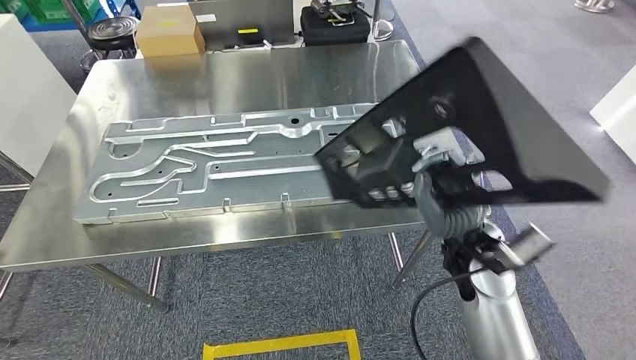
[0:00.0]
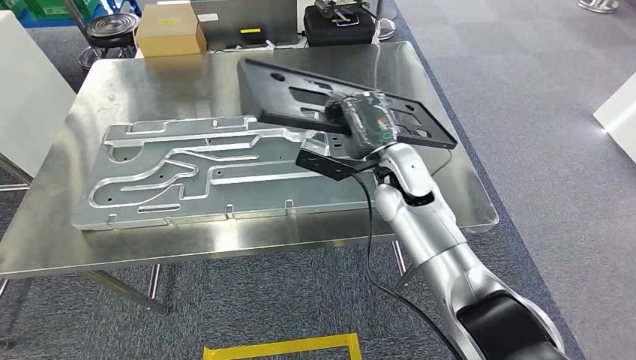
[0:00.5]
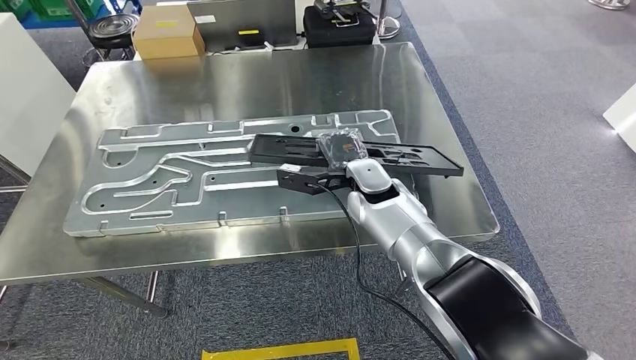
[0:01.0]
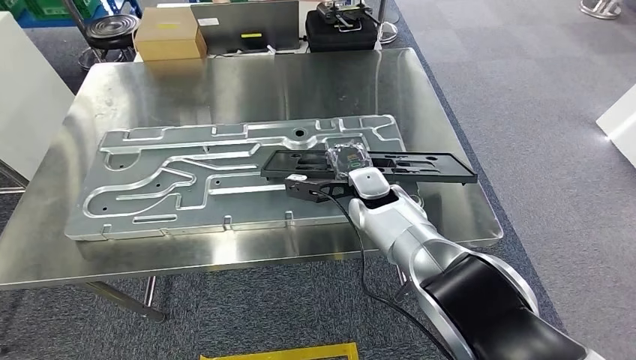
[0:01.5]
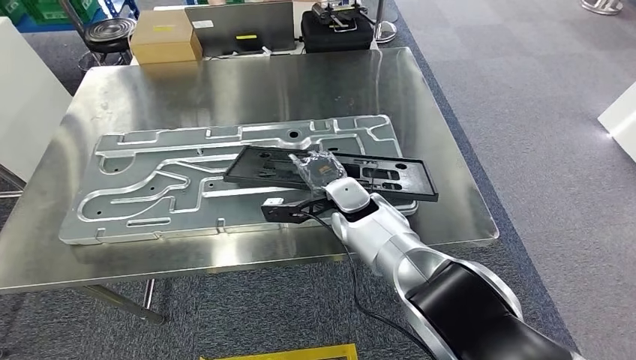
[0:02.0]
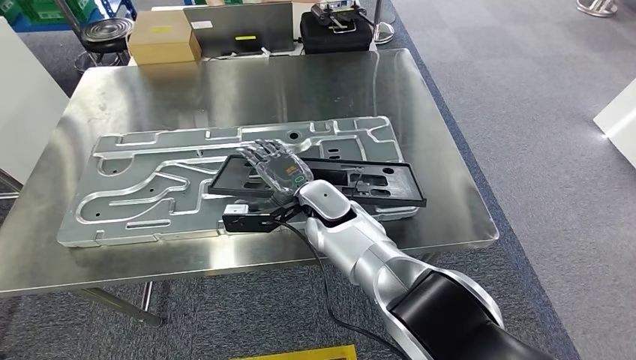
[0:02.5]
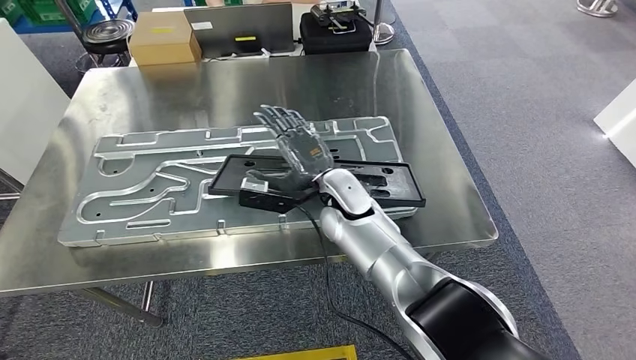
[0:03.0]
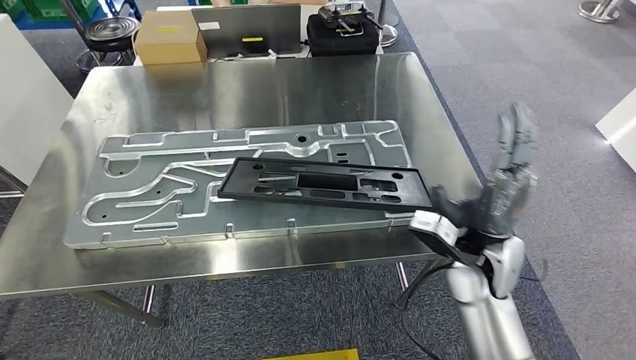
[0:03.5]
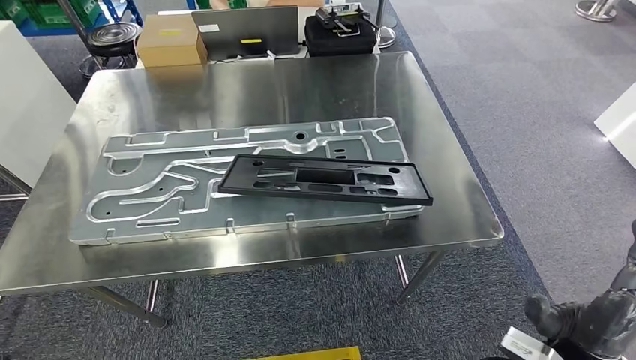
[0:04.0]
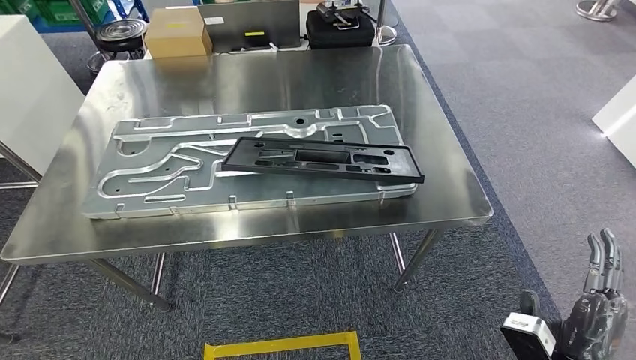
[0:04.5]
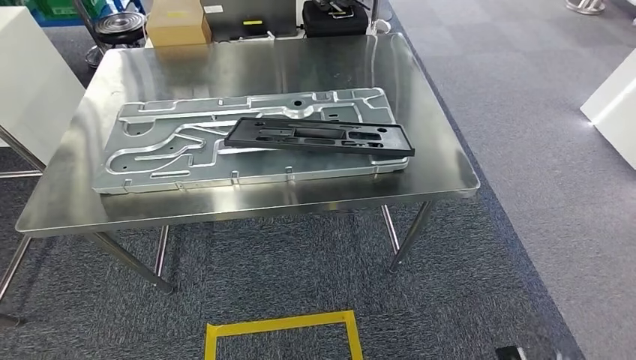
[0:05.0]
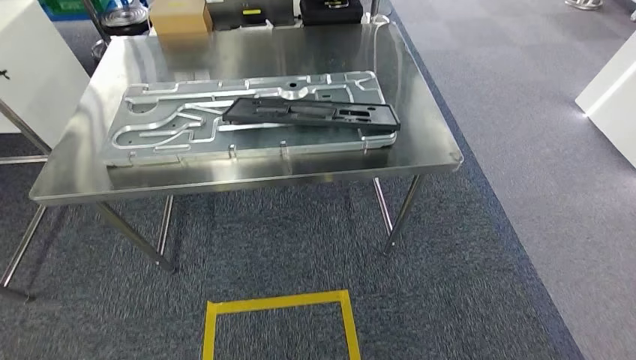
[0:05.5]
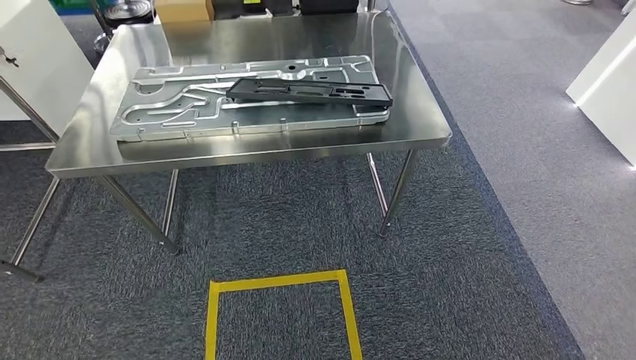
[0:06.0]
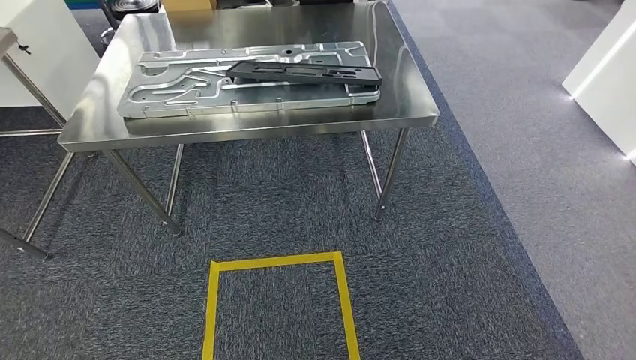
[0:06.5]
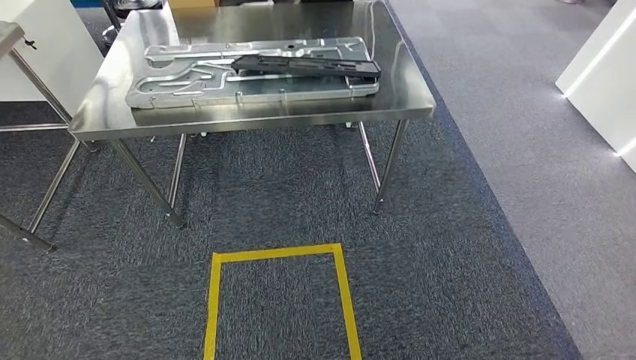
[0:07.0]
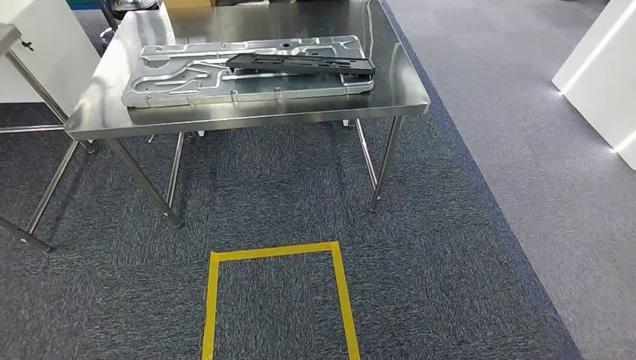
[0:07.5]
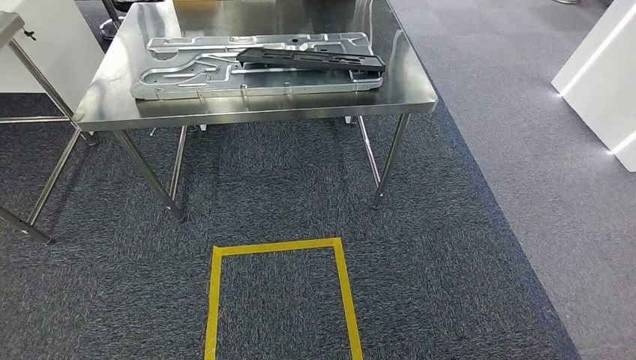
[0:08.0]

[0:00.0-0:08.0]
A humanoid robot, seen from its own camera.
Step, 0:00.0 to 0:02.5: Insert the large material into the corresponding hole on the workbench.
Step, 0:05.0 to 0:08.0: Move to the initial position of the shelf.
